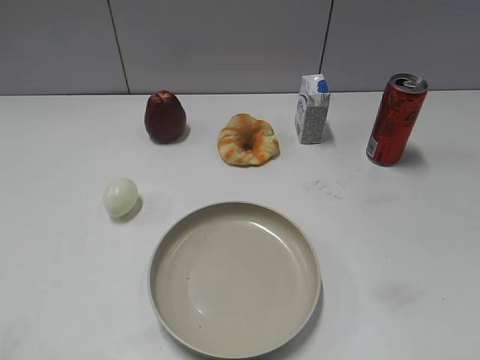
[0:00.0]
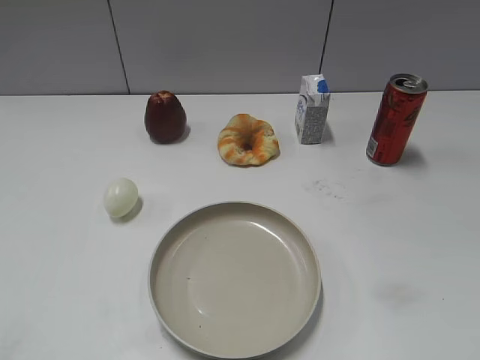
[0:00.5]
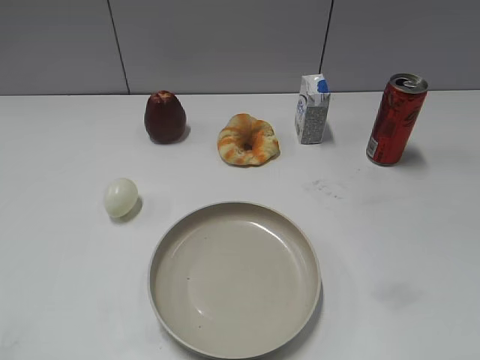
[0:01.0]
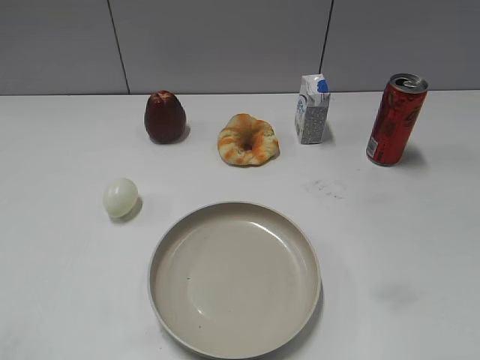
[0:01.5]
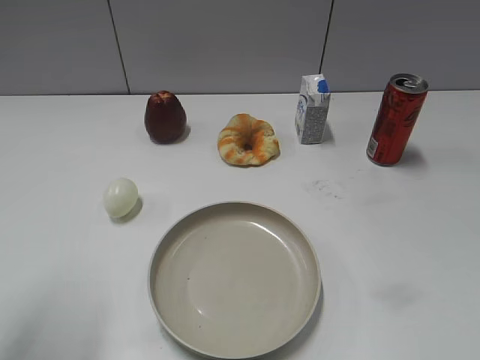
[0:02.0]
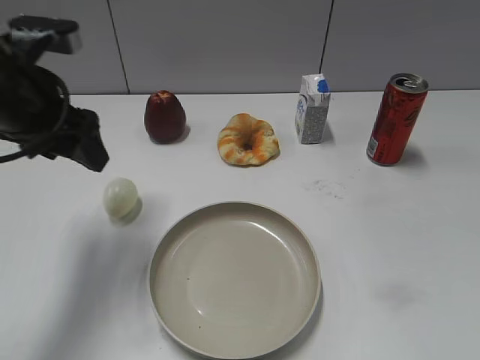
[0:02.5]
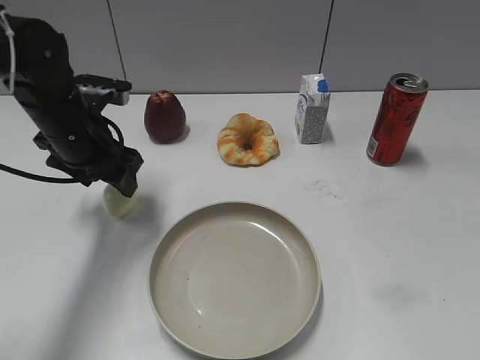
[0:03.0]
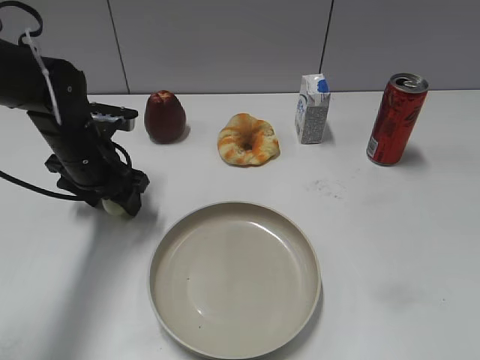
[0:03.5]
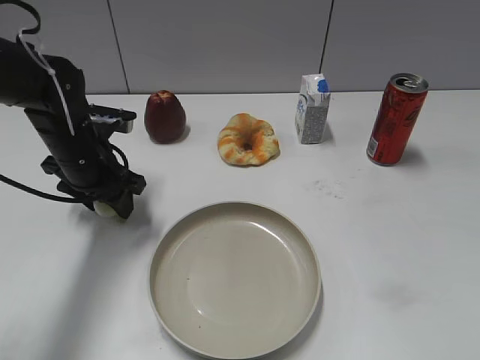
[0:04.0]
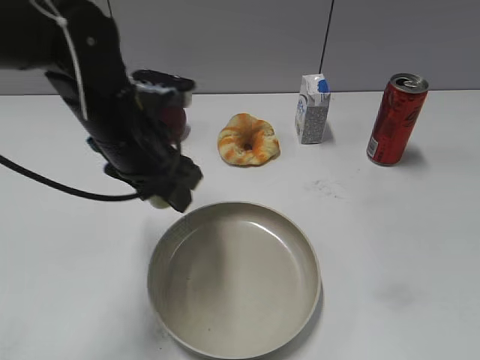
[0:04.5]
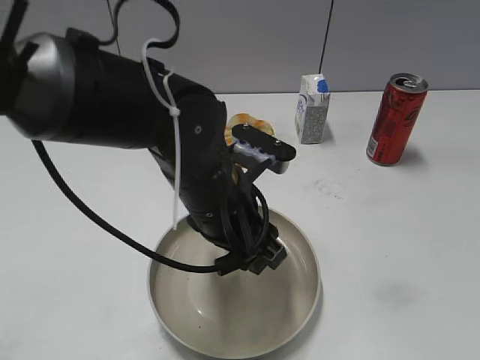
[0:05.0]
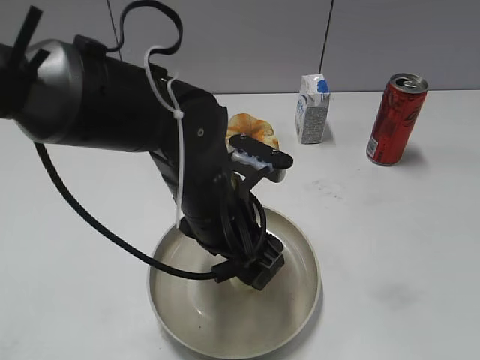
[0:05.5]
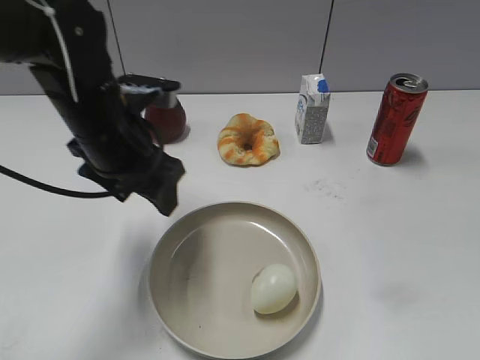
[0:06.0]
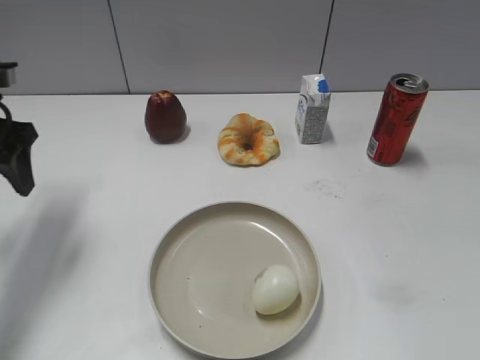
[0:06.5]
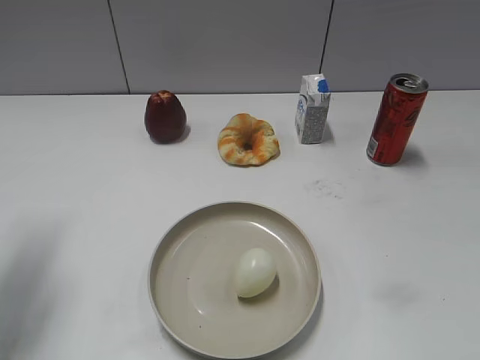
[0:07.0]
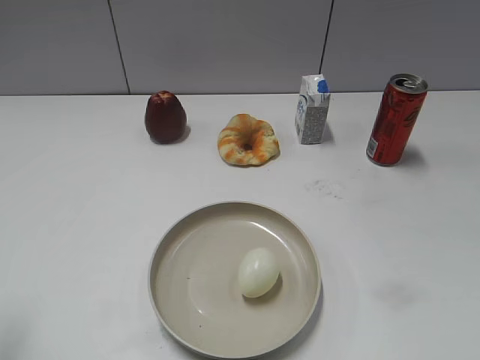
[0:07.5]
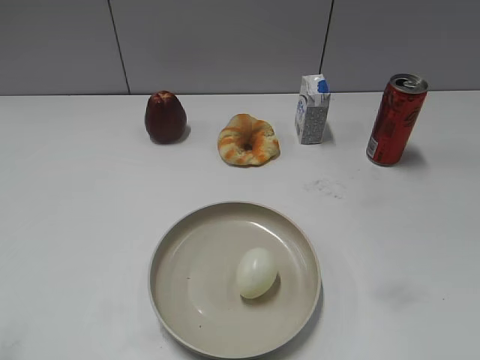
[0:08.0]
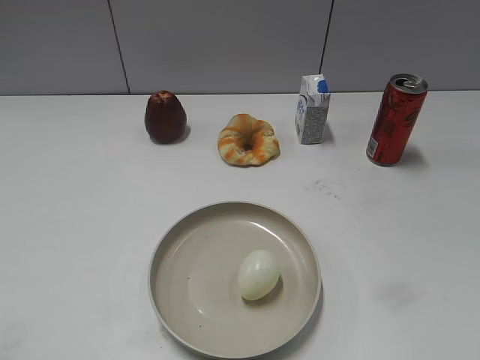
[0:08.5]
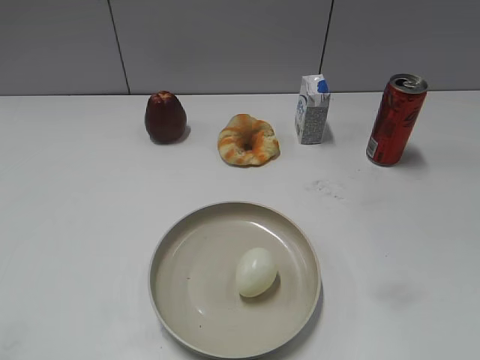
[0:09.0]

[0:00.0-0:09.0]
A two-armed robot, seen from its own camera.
Step, 0:01.5 to 0:03.5: Grasp the egg with left gripper.
Step, 0:04.0 to 0:05.0: Place the egg on the plate with left gripper.
0:02.0 to 0:04.5: The left gripper is displaced forward, to the right and downward by roughly 25 cm, and closes up.
0:04.5 to 0:07.0: The left gripper travels to the left by roughly 15 cm, and opens its fingers.
0:07.0 to 0:09.0: The left gripper shifts roughly 25 cm backward.
